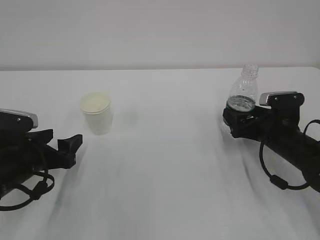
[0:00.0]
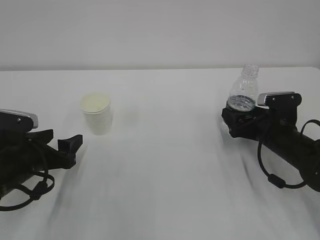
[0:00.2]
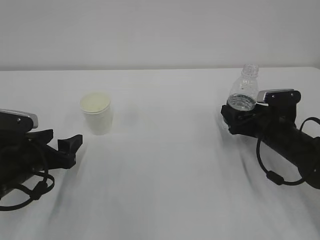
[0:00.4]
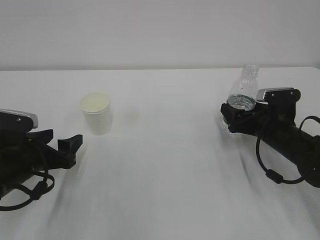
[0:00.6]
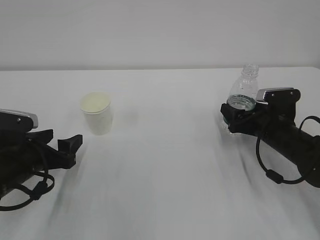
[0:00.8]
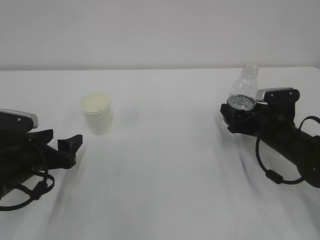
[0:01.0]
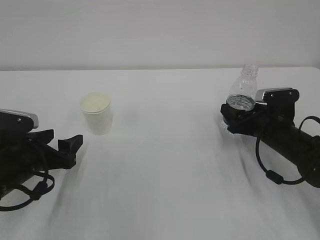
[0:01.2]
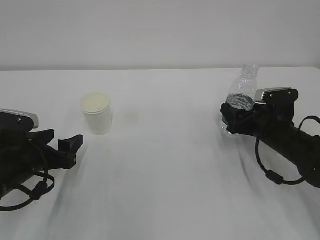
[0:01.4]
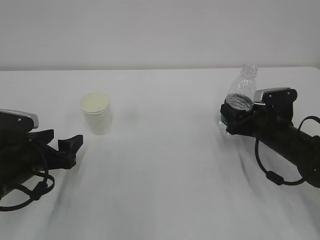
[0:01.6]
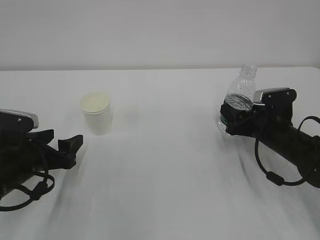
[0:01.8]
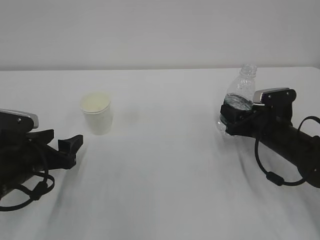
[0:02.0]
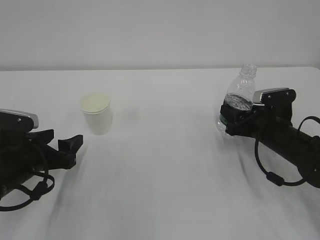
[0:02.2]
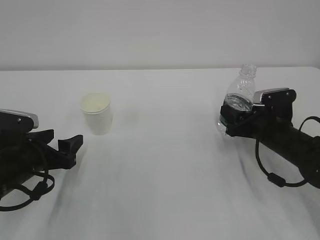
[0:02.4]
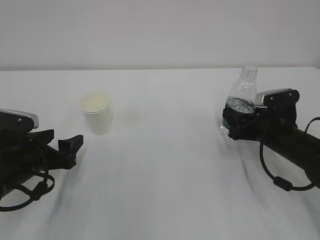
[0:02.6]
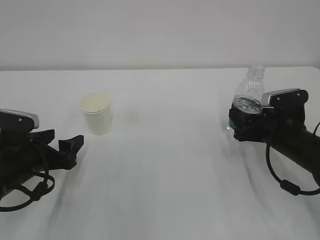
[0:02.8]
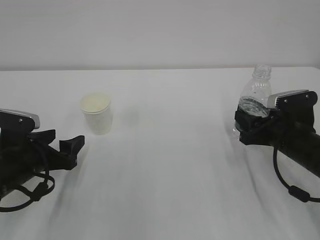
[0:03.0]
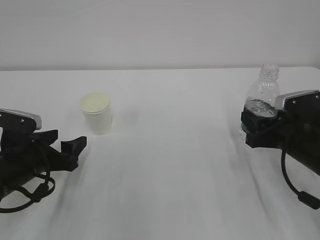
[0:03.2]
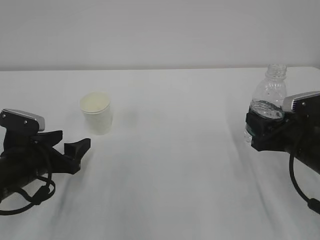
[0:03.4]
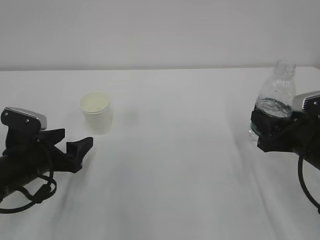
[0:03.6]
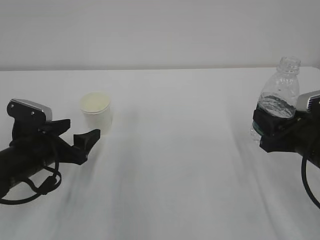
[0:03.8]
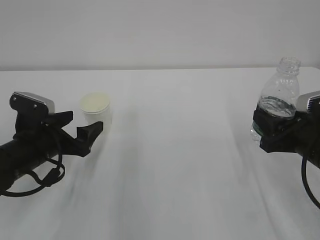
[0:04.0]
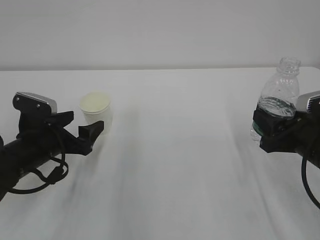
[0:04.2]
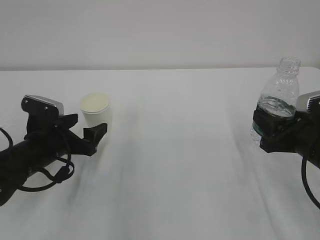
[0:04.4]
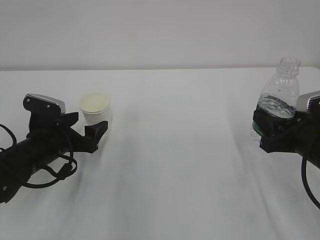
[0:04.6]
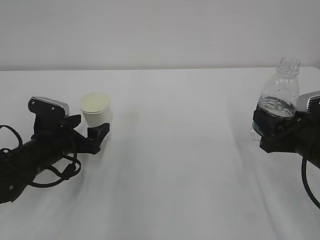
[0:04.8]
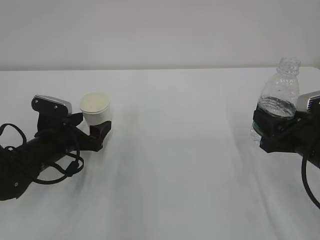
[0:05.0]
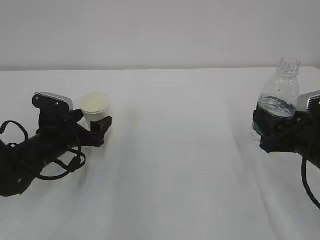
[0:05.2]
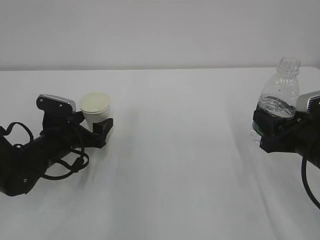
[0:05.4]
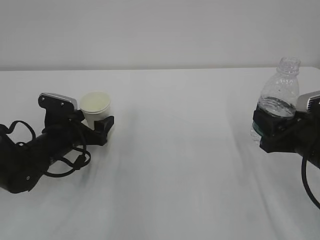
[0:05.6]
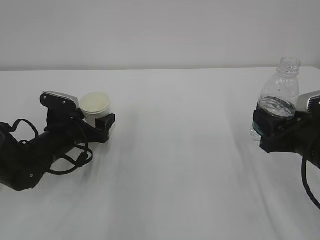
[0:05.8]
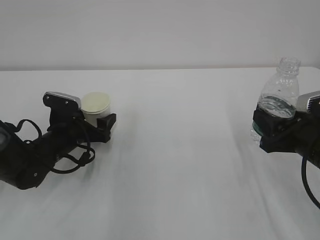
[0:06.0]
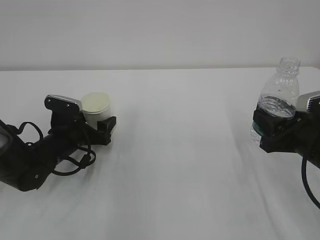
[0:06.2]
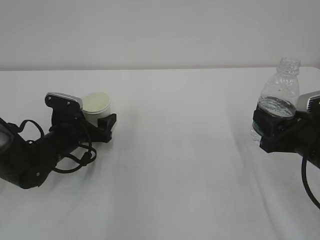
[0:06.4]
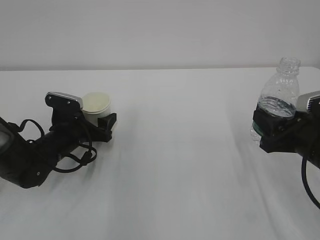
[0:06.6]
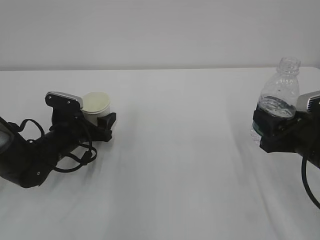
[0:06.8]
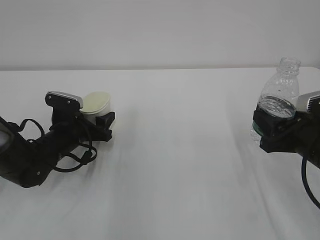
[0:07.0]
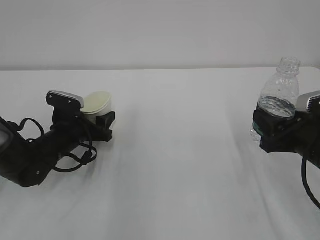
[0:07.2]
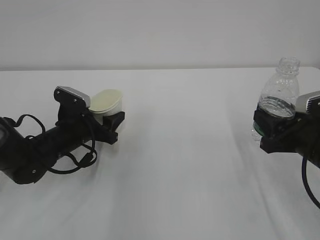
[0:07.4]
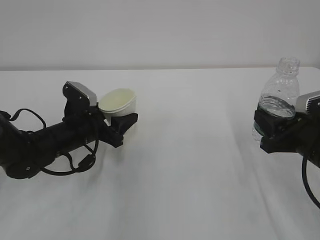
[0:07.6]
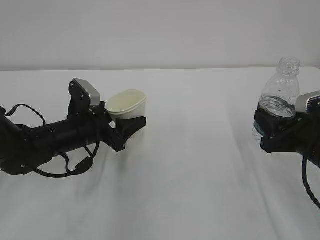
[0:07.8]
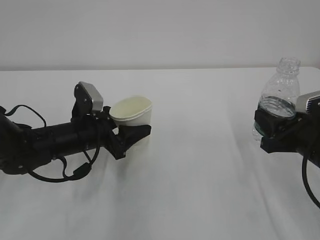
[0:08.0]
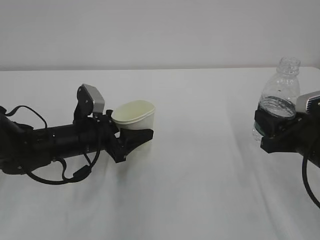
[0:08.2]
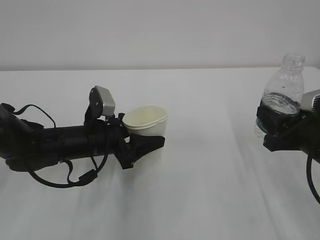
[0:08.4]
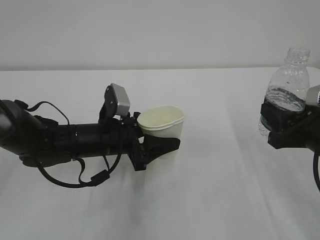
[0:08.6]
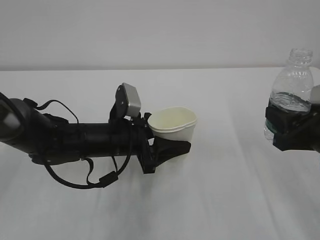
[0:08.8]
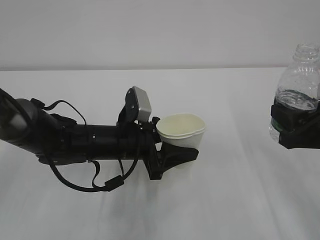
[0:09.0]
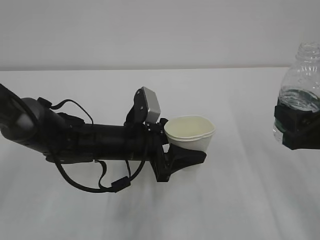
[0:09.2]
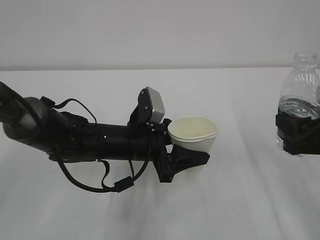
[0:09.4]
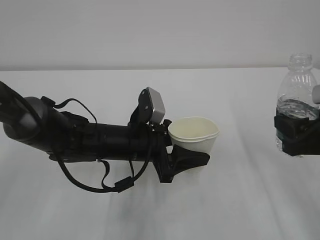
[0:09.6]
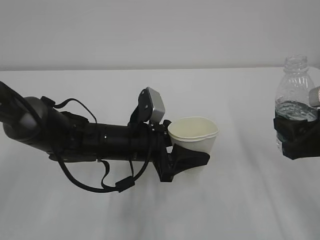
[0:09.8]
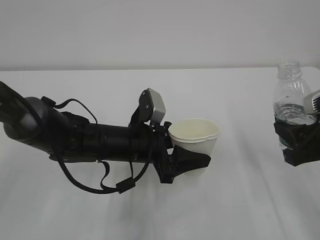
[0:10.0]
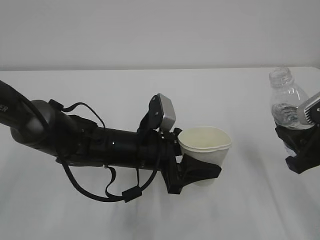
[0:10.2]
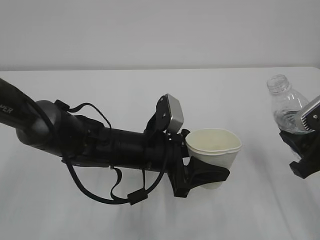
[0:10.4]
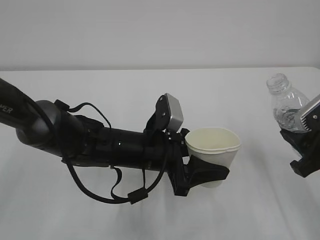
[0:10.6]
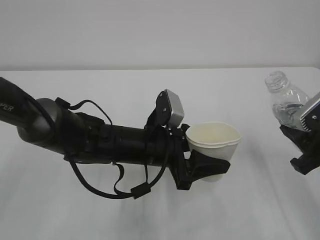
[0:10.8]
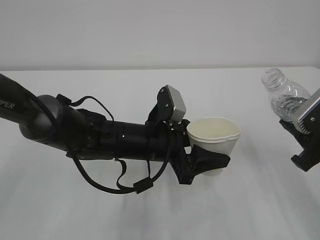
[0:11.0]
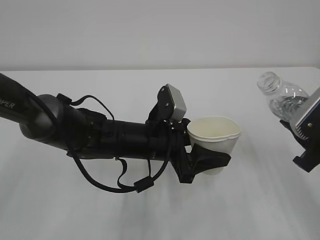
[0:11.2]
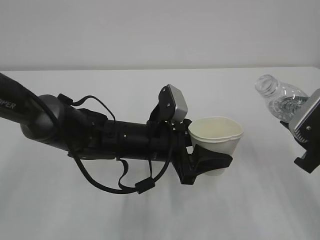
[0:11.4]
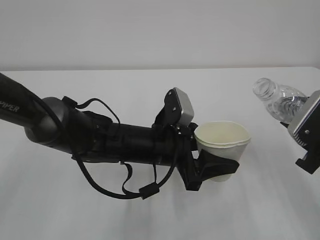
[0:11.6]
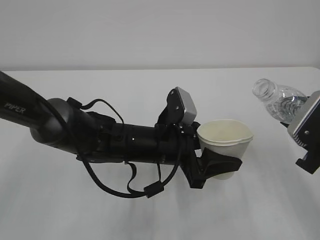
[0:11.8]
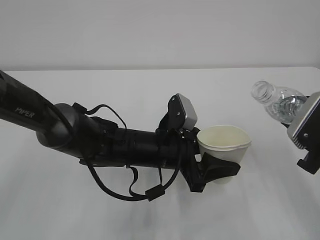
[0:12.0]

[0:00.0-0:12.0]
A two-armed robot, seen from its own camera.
0:00.0 to 0:01.6: The right gripper closes.
0:01.6 to 0:03.0: The grippers make only small movements.
0:03.0 to 0:04.4: The right gripper heads backward, covering about 5 cm.
0:04.4 to 0:06.0: The left gripper heads forward, covering some 5 cm.
0:06.0 to 0:07.6: The left gripper closes up.
0:07.6 to 0:09.0: The right gripper changes place by about 5 cm; the left gripper shifts roughly 10 cm to the right.
0:09.0 to 0:10.4: The left gripper moves about 5 cm.

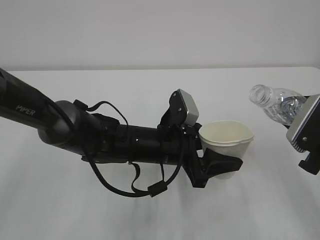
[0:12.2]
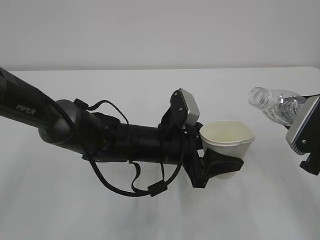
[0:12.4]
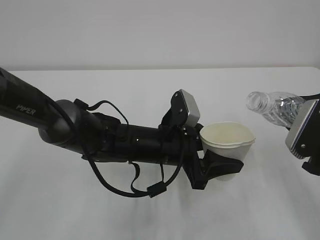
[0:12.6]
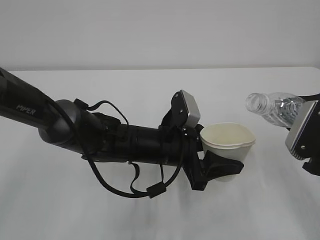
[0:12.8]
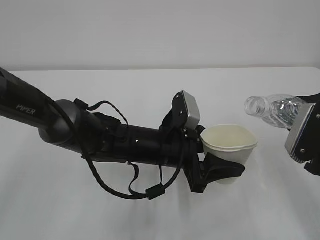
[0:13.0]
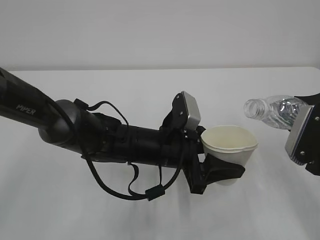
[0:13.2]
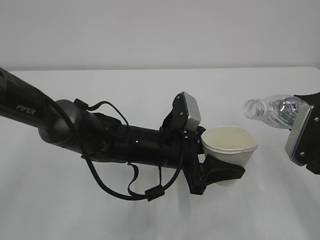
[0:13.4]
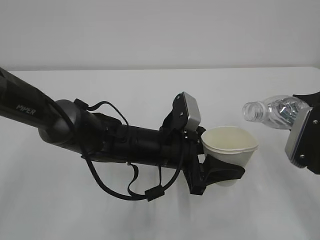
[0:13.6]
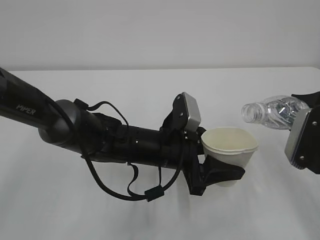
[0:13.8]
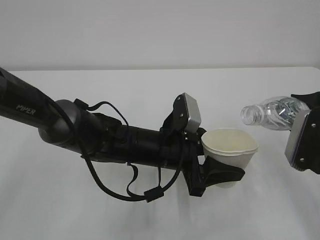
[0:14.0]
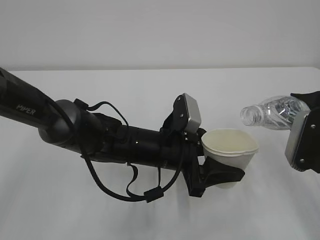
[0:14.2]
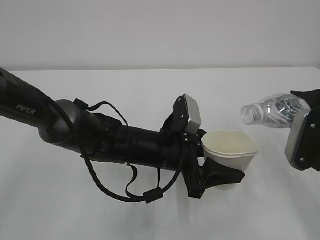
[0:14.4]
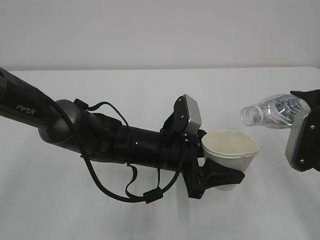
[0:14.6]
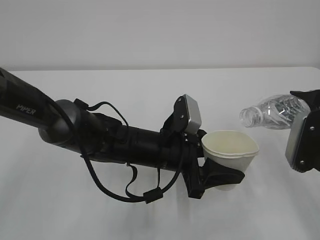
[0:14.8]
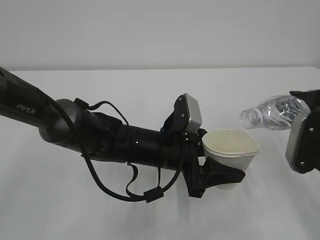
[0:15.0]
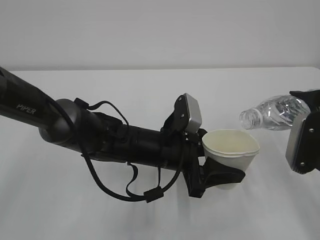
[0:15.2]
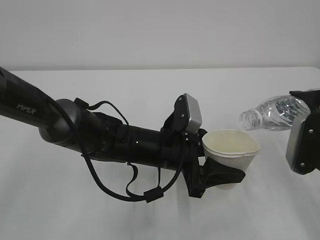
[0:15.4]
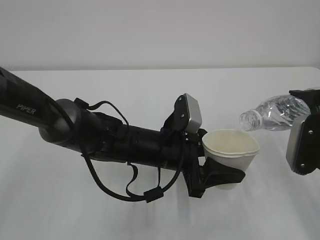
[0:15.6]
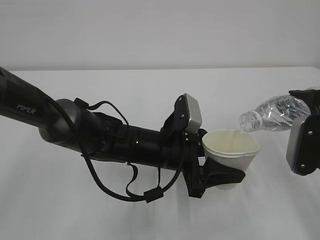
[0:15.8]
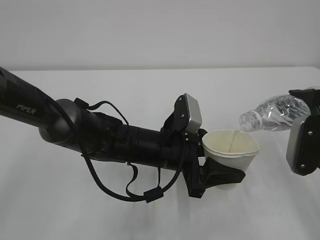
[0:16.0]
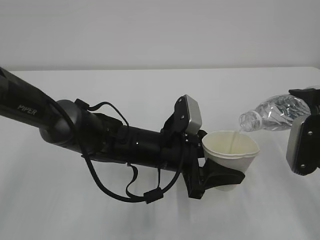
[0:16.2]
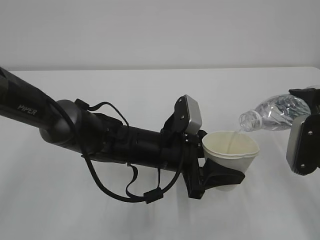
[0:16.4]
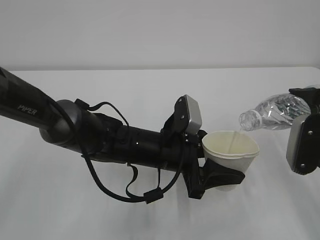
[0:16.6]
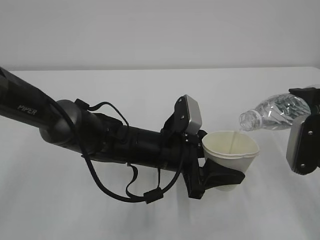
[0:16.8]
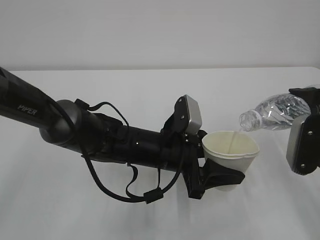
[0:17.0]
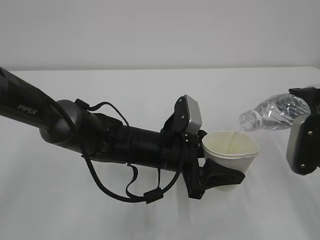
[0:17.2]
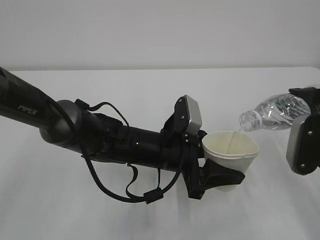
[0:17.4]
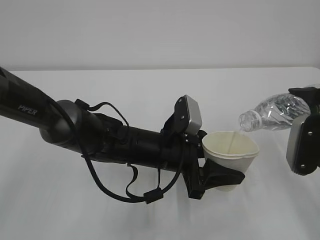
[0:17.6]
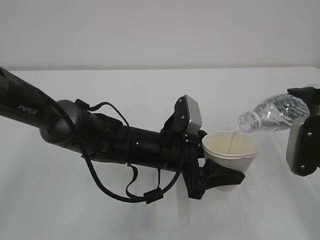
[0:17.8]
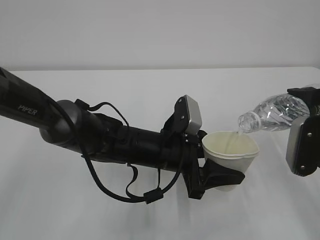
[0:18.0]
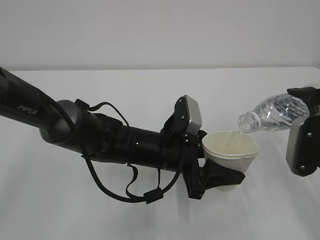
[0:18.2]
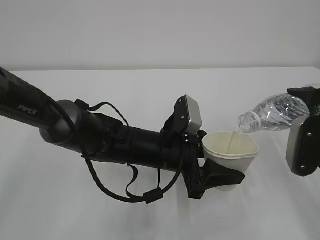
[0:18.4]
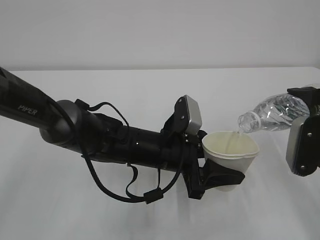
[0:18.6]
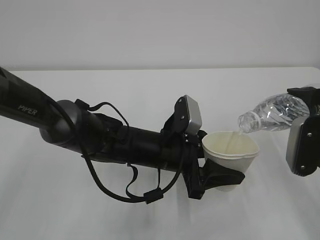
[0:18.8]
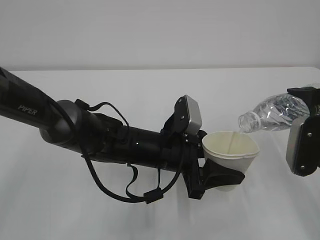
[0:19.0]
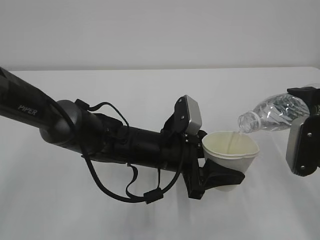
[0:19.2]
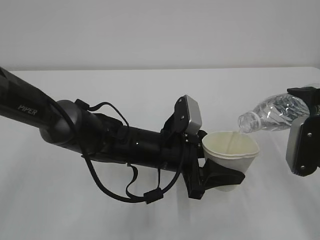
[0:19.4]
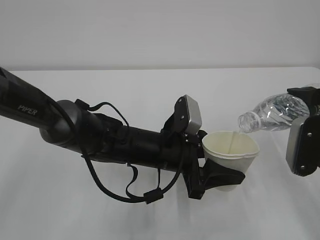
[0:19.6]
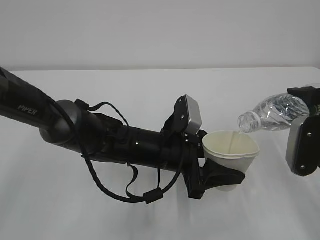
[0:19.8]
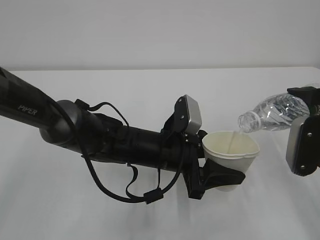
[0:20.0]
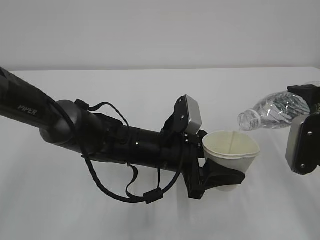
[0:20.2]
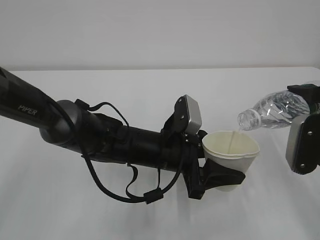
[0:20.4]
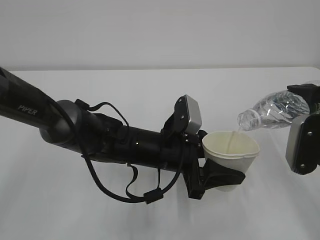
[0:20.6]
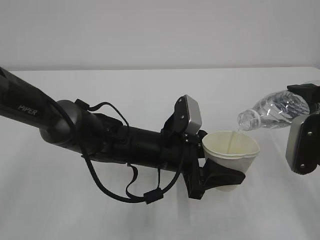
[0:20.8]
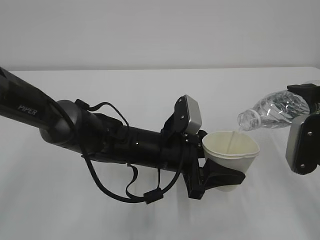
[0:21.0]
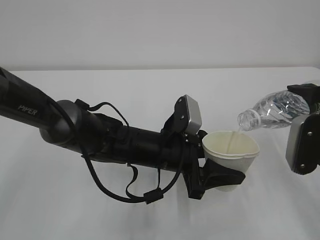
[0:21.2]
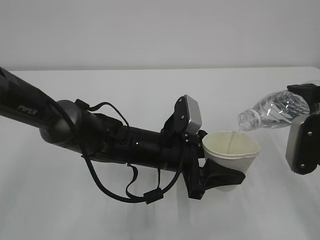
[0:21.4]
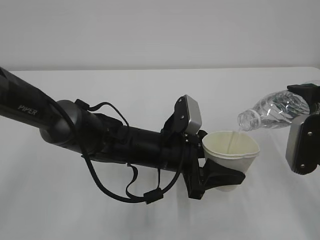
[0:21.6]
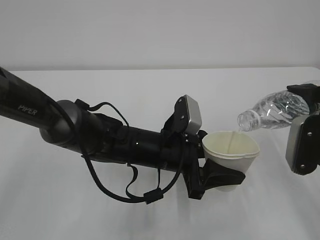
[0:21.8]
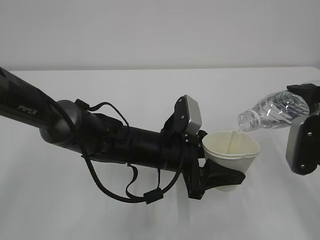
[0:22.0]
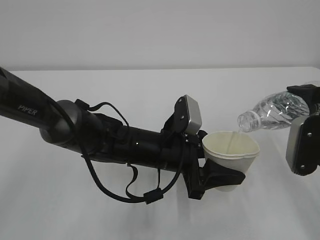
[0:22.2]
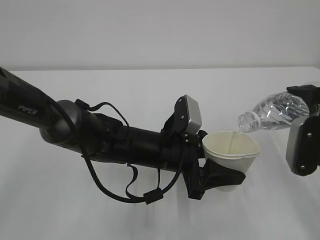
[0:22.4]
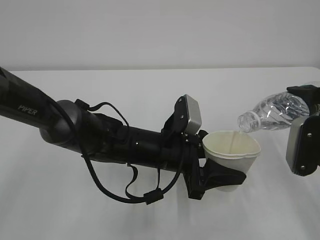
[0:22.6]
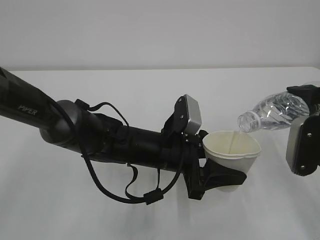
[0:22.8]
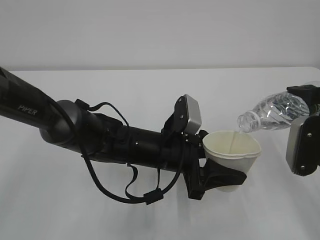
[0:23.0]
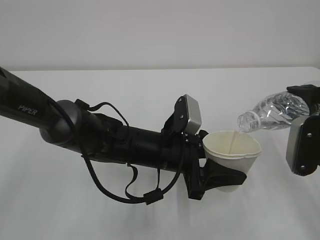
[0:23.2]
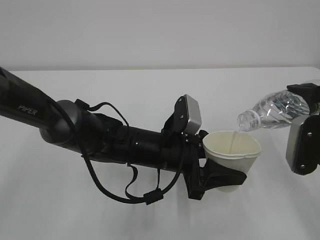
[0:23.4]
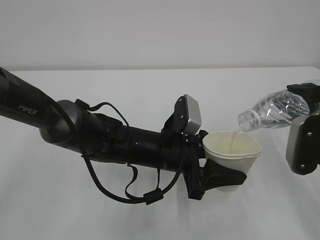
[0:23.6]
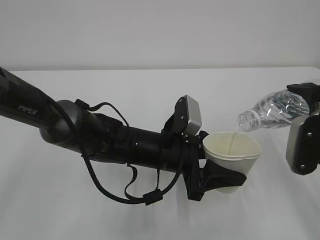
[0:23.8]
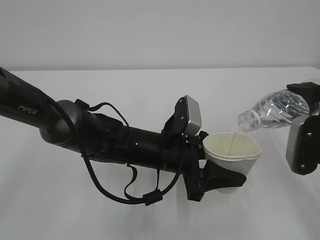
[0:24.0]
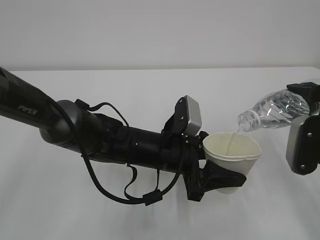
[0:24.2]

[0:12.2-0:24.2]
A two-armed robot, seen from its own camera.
0:12.2 to 0:13.8: The grippers stay close to where they were, moving slightly.
0:13.8 to 0:15.2: The grippers move only a little.
0:15.2 to 0:16.6: Both grippers stay put.
0:16.6 to 0:24.2: Both grippers stay put.
